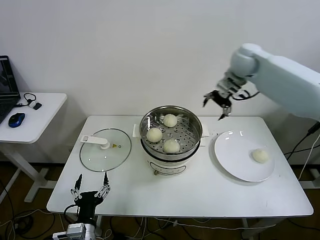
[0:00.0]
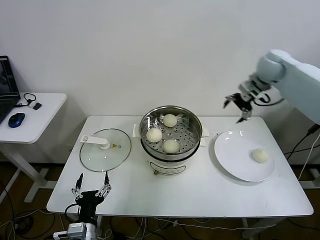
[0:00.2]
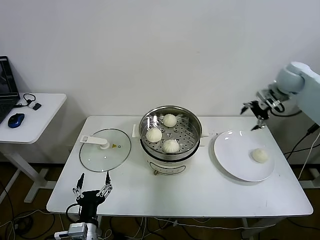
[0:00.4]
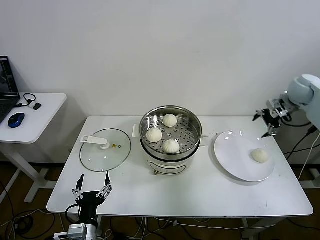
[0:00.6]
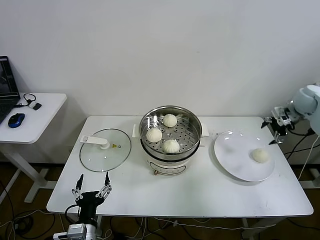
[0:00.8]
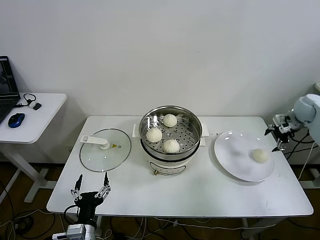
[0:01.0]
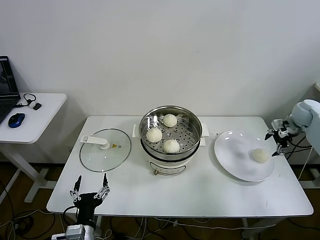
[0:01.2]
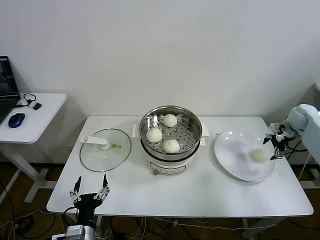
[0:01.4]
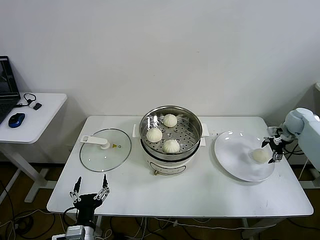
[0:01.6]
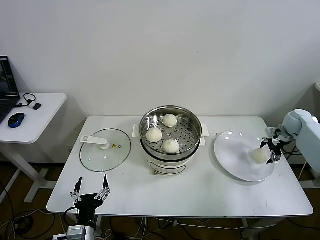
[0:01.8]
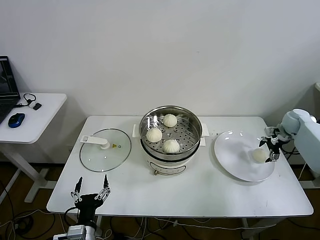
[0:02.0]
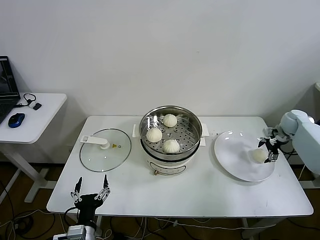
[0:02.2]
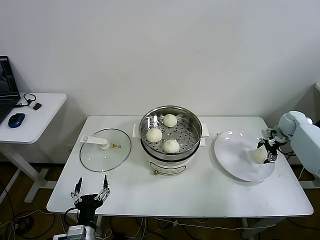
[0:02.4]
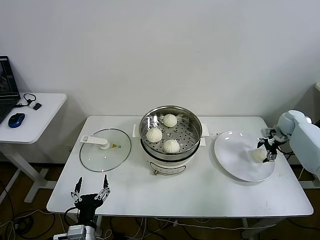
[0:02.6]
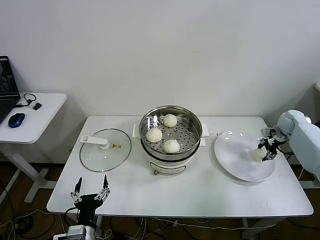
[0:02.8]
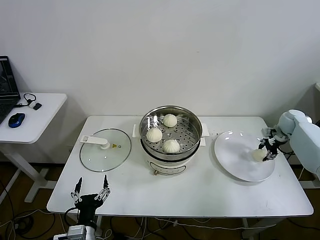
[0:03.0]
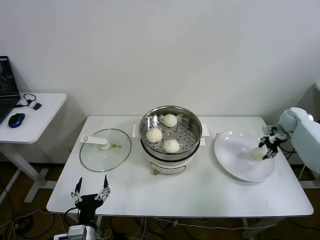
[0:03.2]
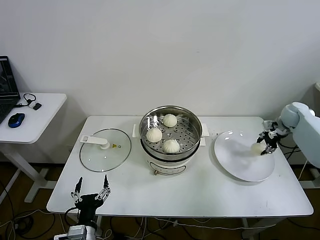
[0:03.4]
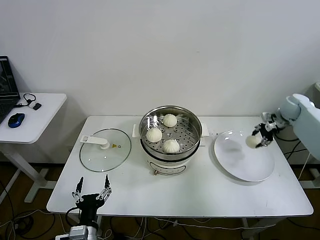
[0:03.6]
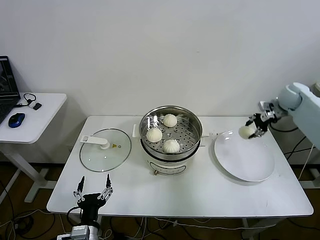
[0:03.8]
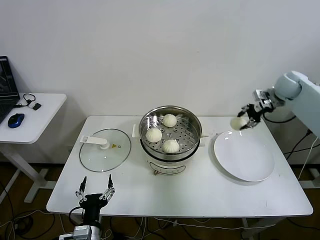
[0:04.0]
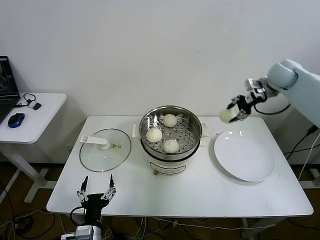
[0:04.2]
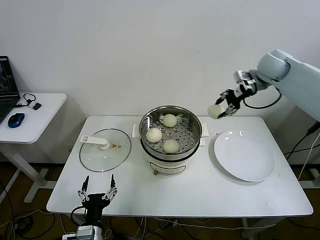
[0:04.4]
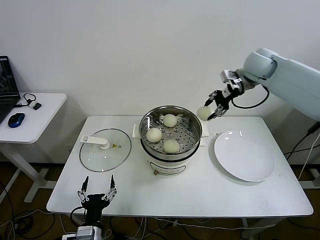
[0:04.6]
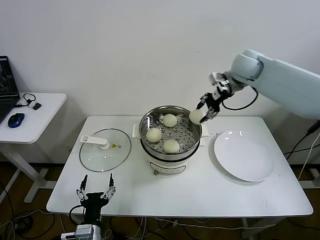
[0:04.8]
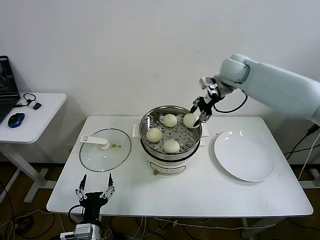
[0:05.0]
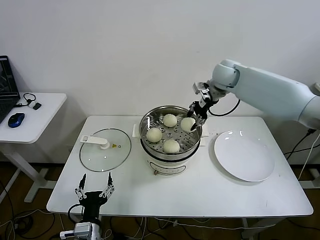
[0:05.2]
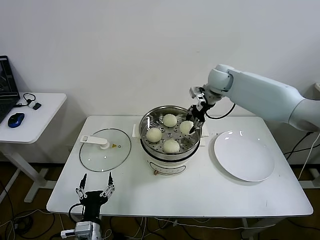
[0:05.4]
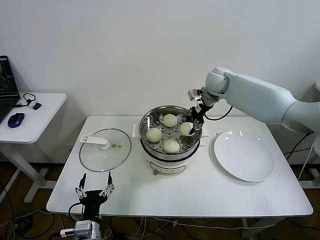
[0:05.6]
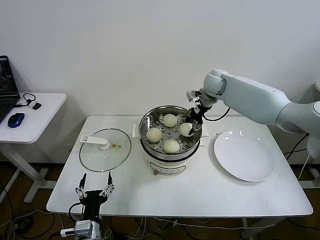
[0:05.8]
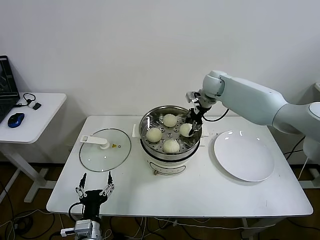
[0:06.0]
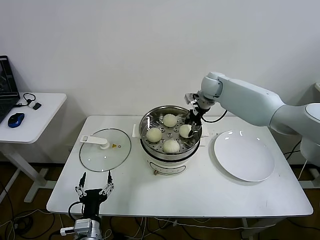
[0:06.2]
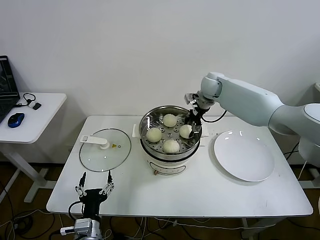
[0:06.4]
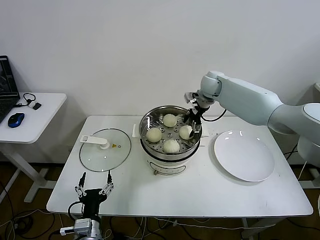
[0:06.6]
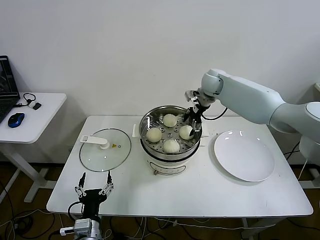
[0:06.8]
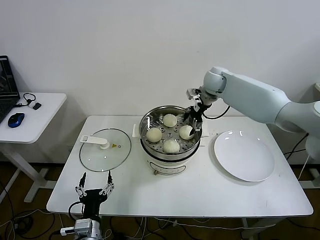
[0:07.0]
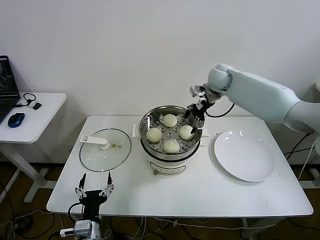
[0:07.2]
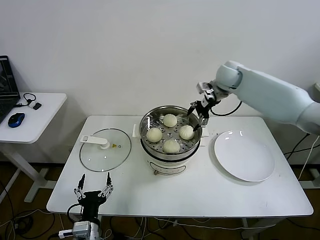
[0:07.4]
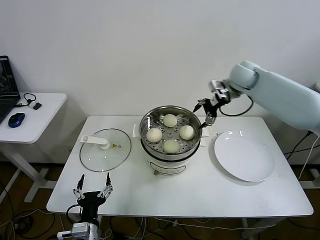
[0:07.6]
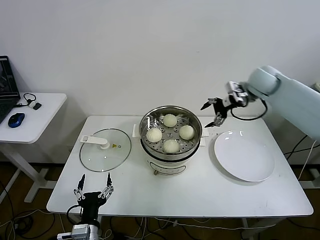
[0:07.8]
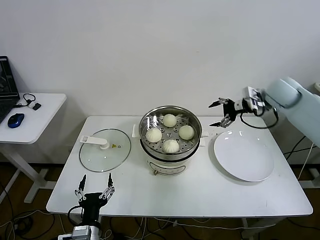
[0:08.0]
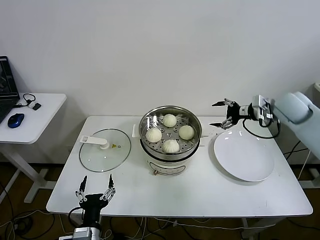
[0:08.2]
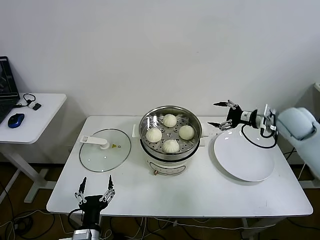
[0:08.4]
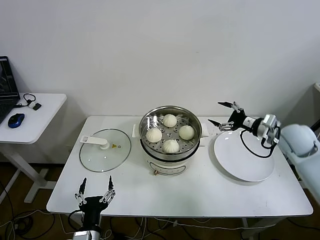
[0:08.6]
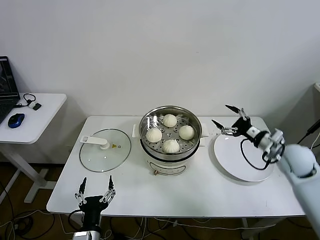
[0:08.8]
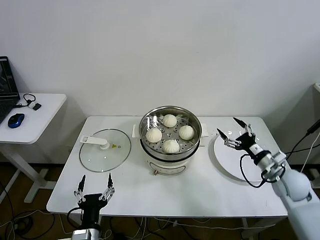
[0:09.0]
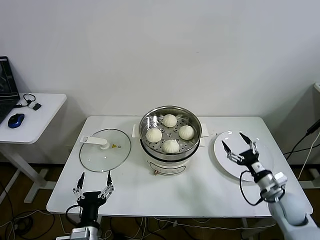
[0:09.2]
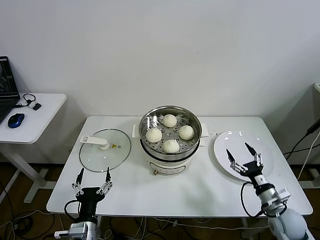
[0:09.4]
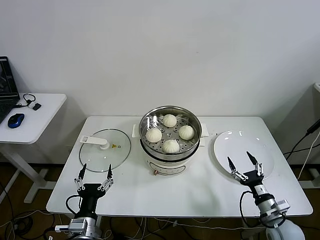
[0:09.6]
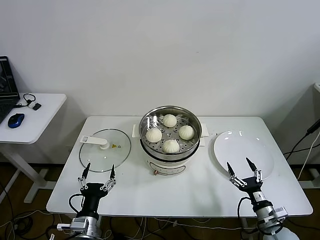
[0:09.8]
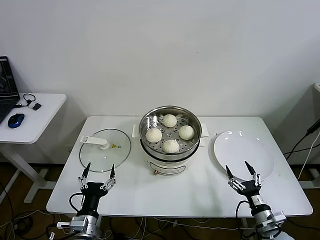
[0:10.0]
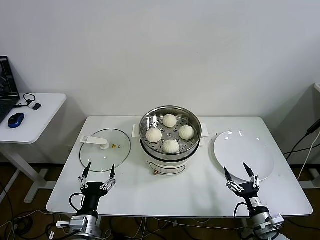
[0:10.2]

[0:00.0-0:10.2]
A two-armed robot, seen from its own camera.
Step, 0:00.0 to 0:03.0: Grasp the baozi in the plate with right gripper.
Step, 0:03.2 to 0:06.8: Place the baozi on the steamer with right gripper.
0:00.0 to 0:01.4: The right gripper is displaced to the right and downward by approximately 35 cm.
0:01.4 to 0:03.0: The right gripper closes its fingers.
0:03.0 to 0:04.4: The right gripper travels upward and to the left by some 30 cm.
0:04.4 to 0:05.8: The right gripper goes about 20 cm to the left and downward.
0:05.8 to 0:07.2: The right gripper opens up.
0:07.2 to 0:08.8: The right gripper moves backward, to the right and downward, roughly 35 cm.
0:08.8 to 0:10.2: The right gripper travels downward and backward by some 30 cm, while the left gripper moves roughly 5 cm.

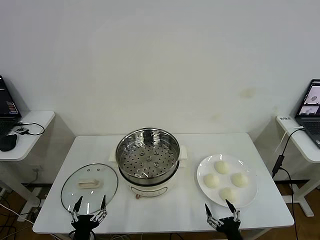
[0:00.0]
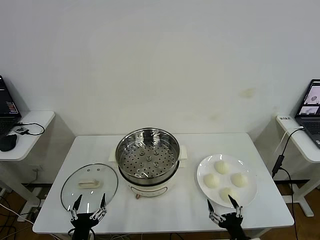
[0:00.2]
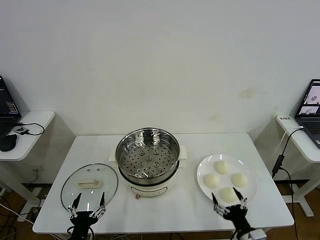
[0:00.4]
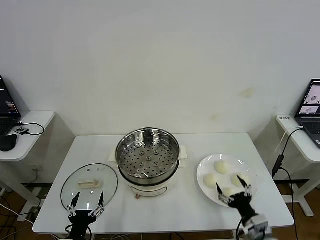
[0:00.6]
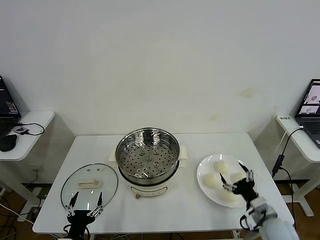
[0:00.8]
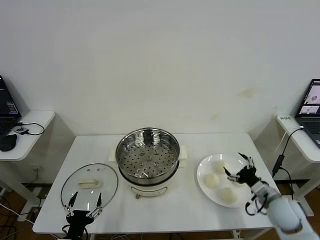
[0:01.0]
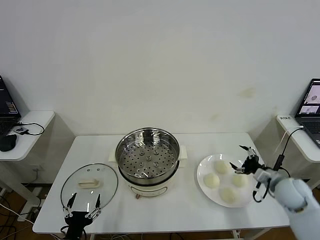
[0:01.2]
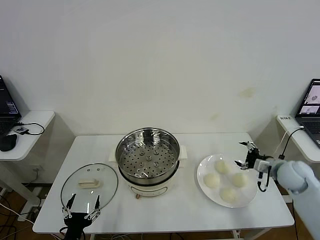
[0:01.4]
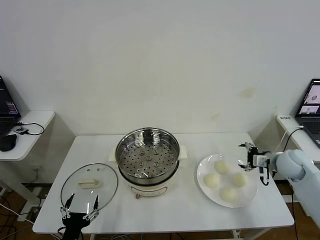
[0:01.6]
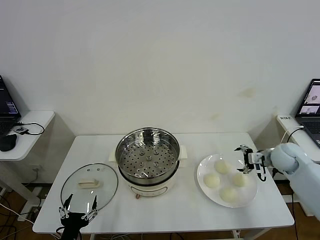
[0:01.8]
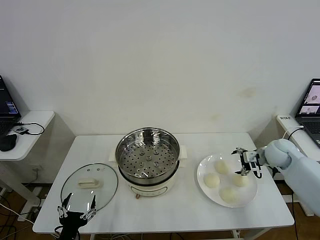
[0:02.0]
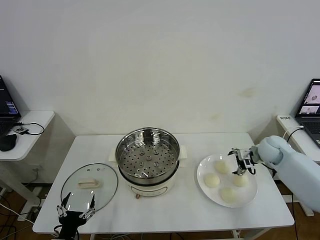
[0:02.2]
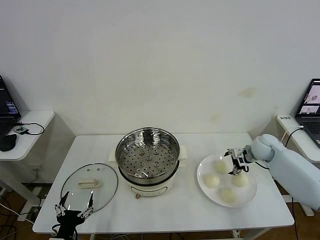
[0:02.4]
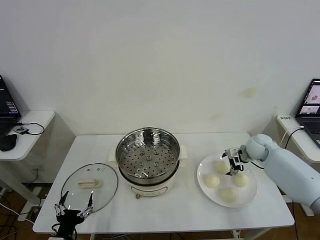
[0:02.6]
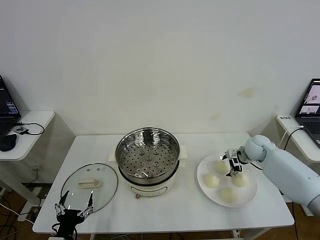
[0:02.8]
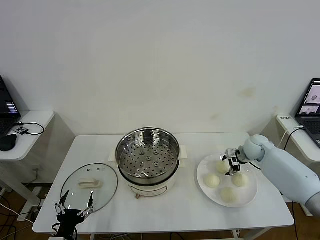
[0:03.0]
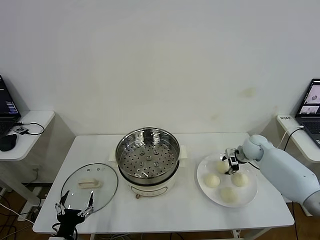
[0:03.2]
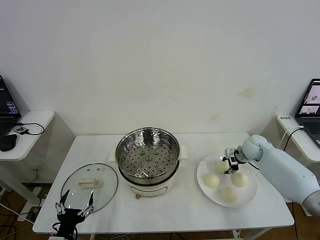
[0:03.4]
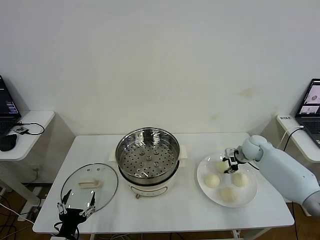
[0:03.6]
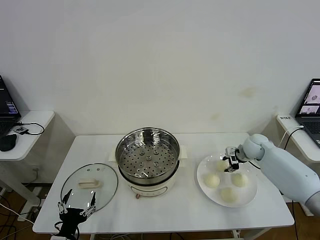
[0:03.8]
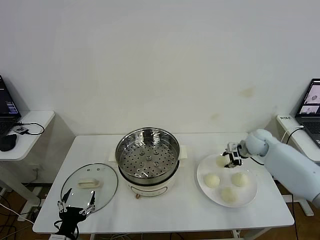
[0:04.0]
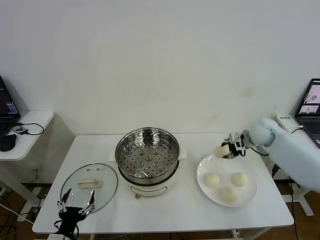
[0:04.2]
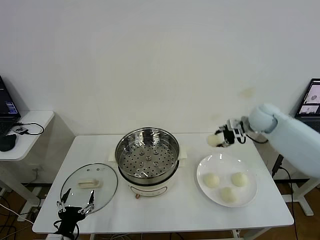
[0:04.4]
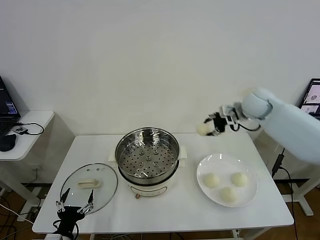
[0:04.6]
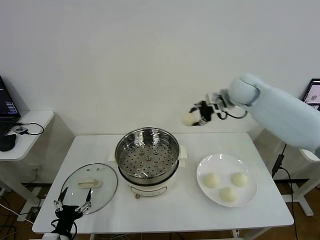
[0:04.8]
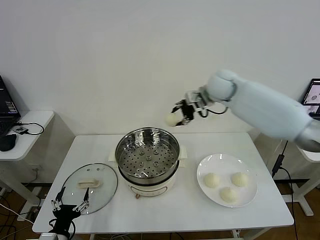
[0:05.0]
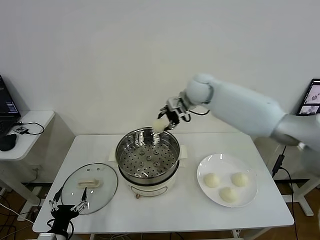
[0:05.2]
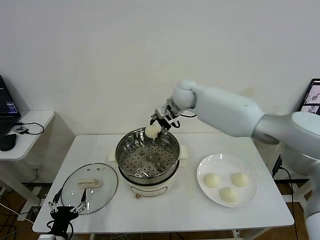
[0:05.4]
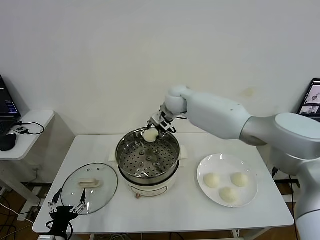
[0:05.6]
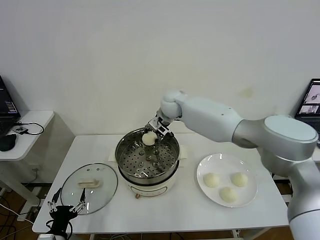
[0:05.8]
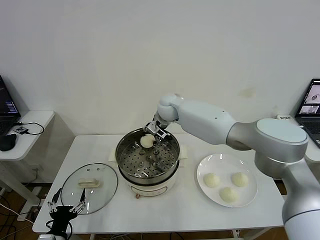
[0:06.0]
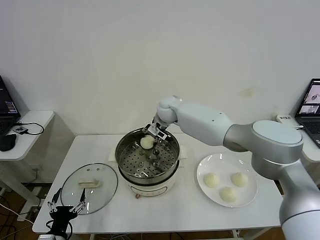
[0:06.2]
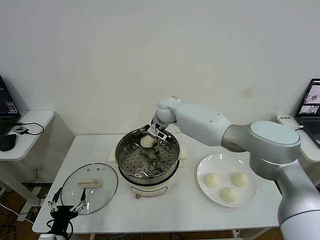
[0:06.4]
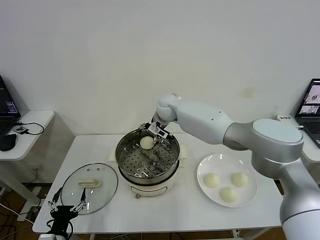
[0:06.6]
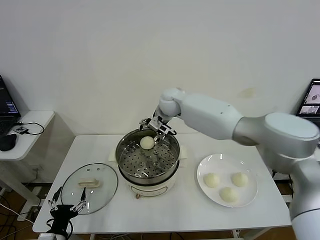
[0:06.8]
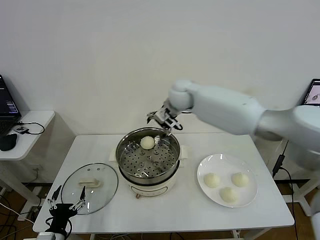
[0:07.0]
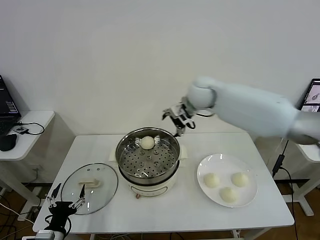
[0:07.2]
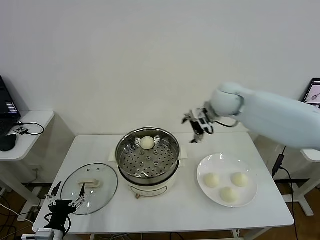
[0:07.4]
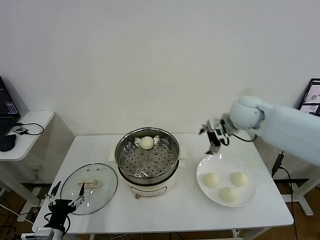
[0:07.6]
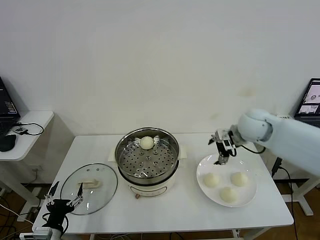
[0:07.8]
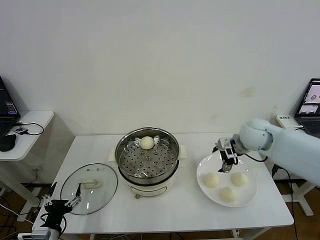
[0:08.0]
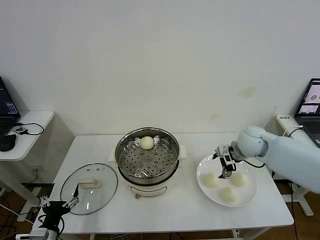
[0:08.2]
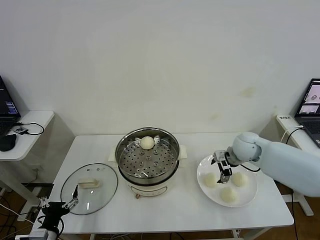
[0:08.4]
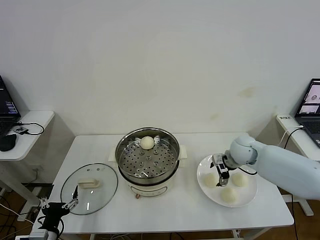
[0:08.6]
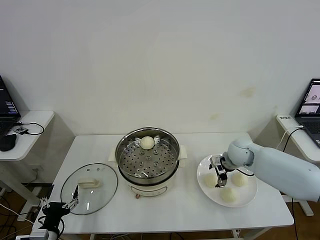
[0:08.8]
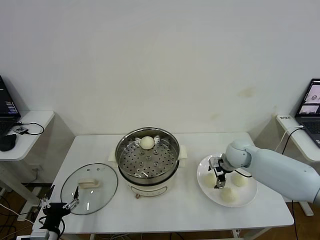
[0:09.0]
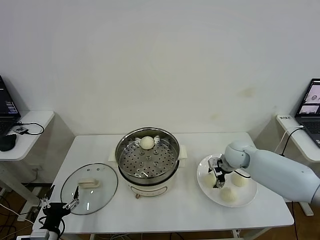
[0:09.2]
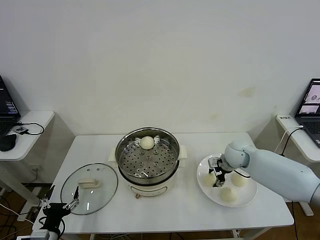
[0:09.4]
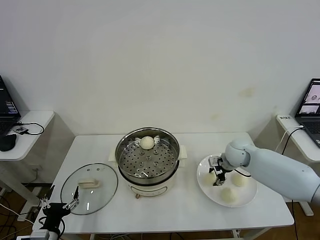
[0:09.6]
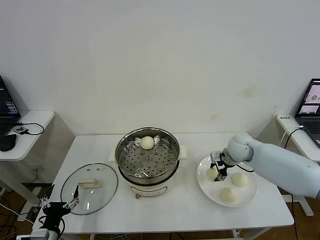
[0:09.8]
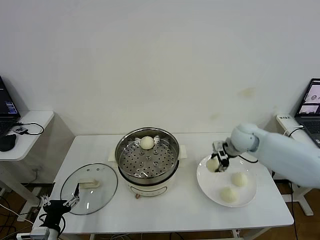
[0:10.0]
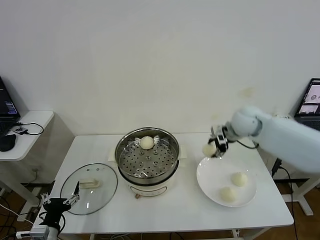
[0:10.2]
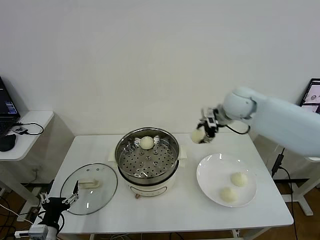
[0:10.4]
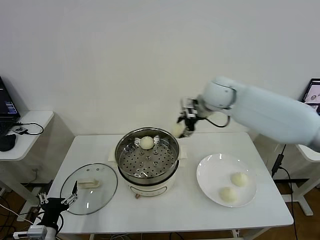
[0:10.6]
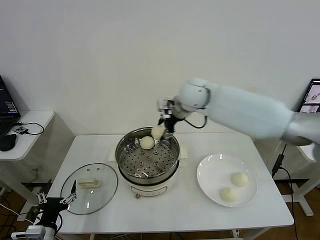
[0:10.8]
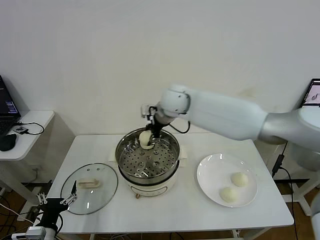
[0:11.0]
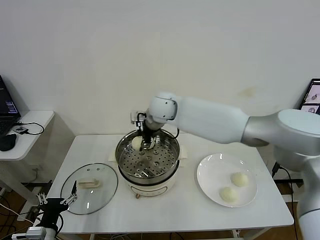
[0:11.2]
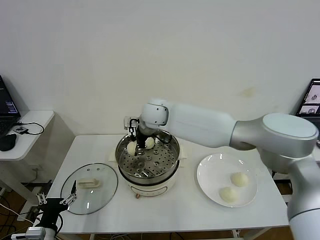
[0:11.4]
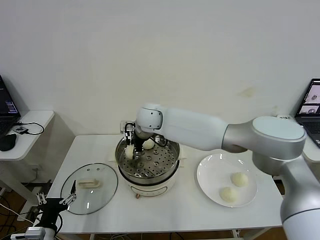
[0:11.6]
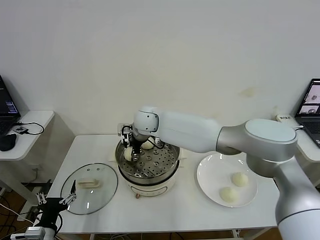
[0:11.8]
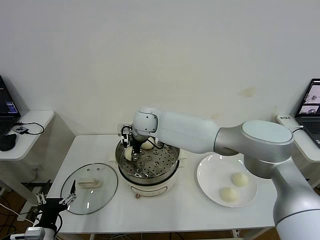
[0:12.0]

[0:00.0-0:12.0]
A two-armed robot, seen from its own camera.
Step, 0:00.0 to 0:03.6: Grasp the baozi in the plate with right gripper.
Step, 0:03.8 to 0:06.6: Place the baozi on the steamer with right gripper.
Step, 0:06.8 to 0:09.4: Grasp the baozi in the plate with right gripper.
0:01.6 to 0:03.0: The right gripper moves forward and to the left, about 10 cm, and closes up.
0:03.0 to 0:04.4: The right gripper moves upward, roughly 20 cm, and closes its fingers.
0:04.4 to 0:06.0: The right gripper is displaced to the left by about 30 cm.
0:06.0 to 0:07.6: The right gripper moves to the right and backward, some 25 cm, and opens up.
0:07.6 to 0:09.0: The right gripper shifts roughly 15 cm downward.
0:09.0 to 0:10.4: The right gripper moves upward, some 20 cm, and closes.
0:10.4 to 0:12.0: The right gripper travels to the left by roughly 25 cm.
